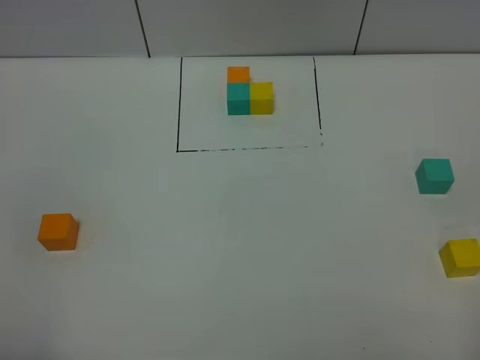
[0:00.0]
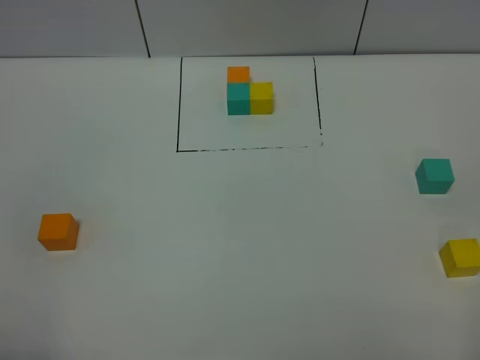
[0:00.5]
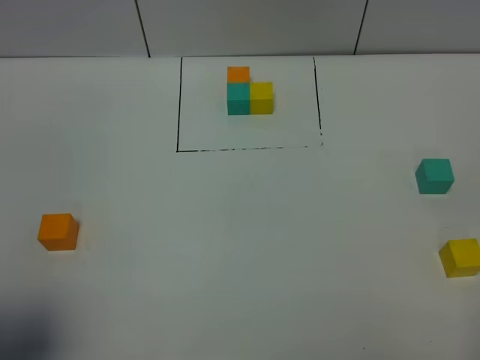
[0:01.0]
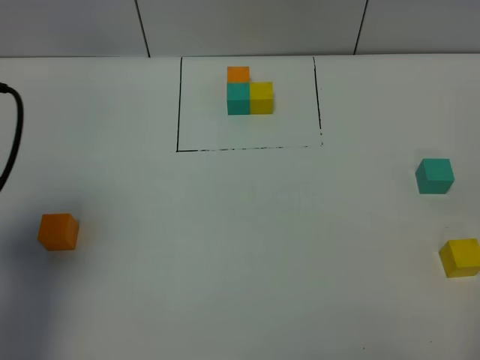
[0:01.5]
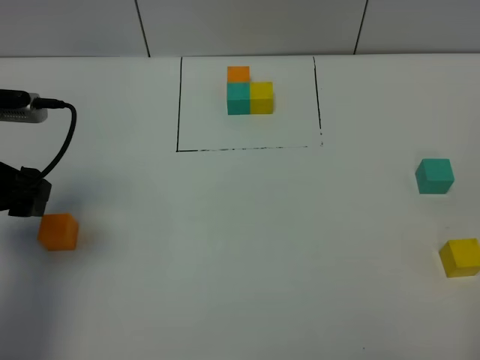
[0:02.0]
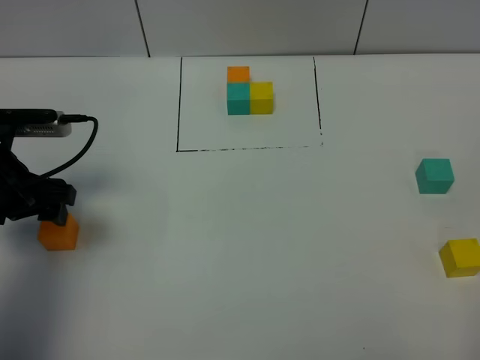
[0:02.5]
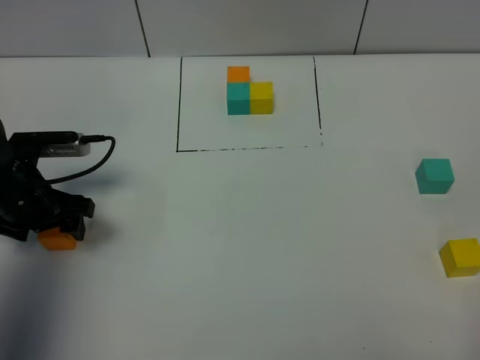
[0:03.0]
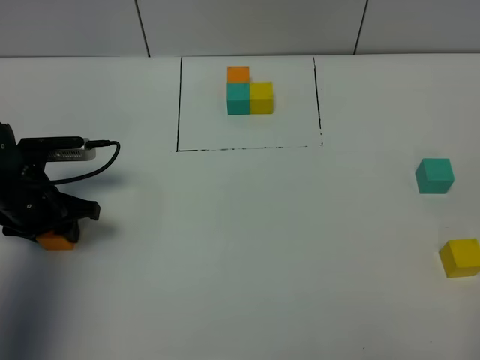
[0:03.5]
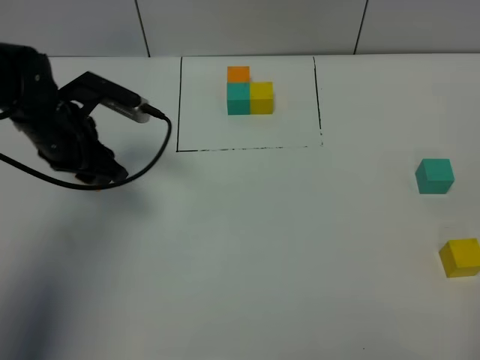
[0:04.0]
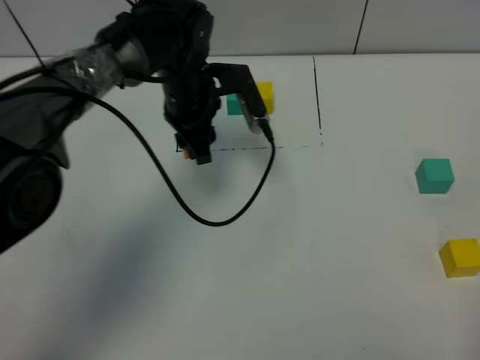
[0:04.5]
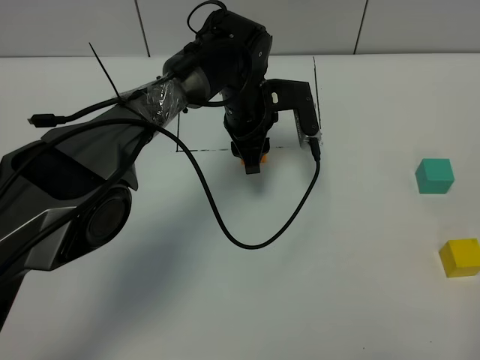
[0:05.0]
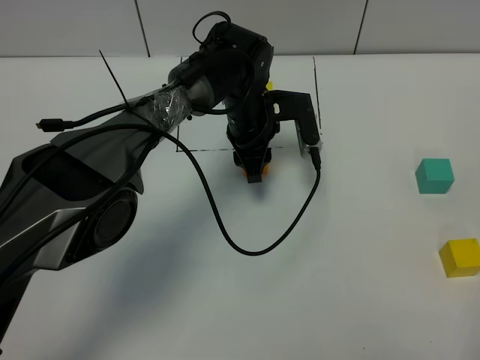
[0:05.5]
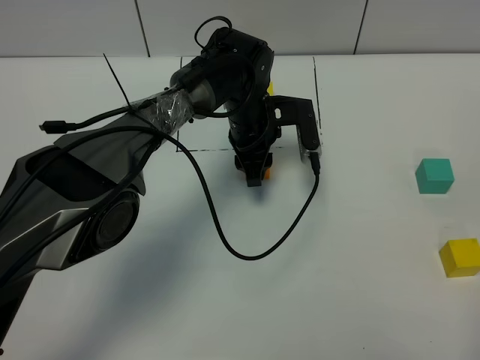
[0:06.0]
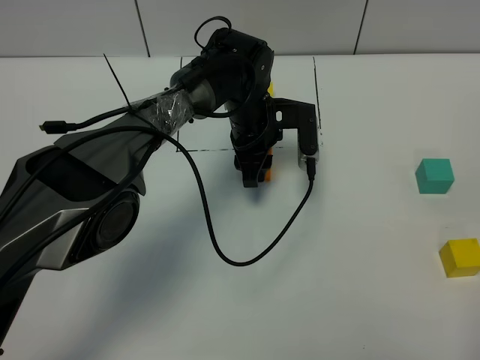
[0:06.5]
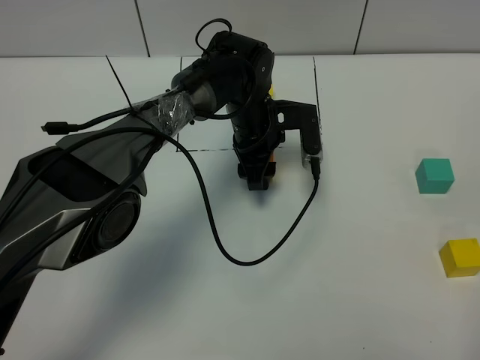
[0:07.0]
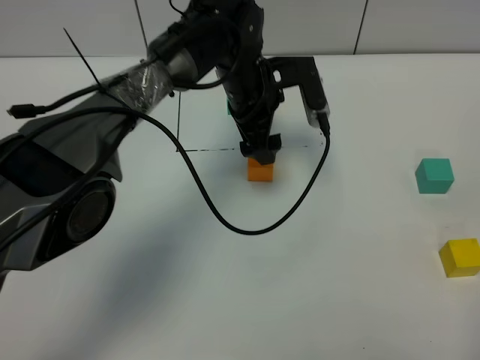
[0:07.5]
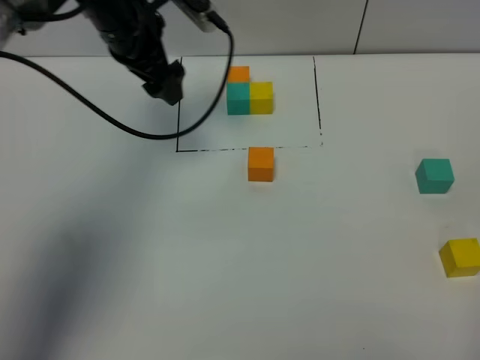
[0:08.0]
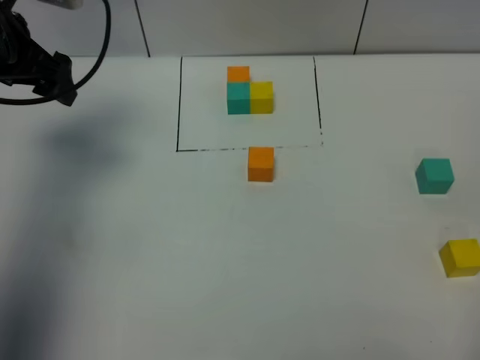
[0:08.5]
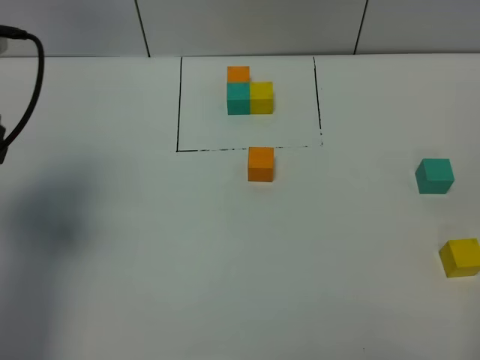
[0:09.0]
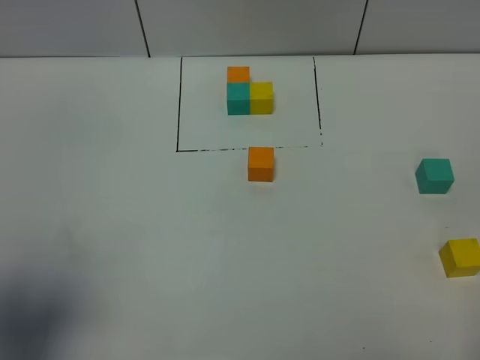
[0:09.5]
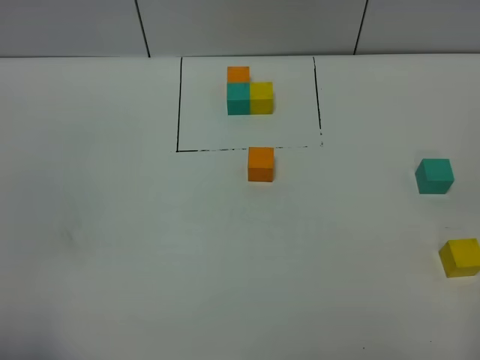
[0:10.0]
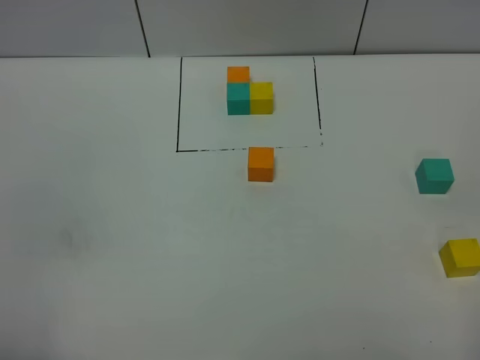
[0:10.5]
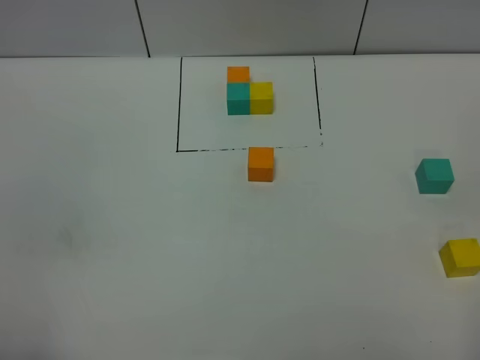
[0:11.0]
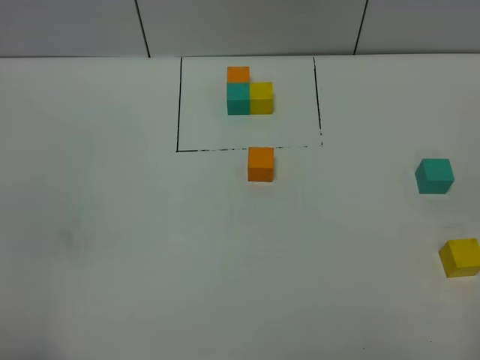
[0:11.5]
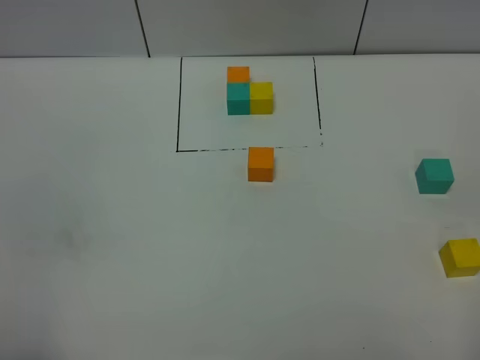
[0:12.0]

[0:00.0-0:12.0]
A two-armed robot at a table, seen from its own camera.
Task of the whole recording: According to the building block template in front, assemble the scattered blocks together.
Step, 0:00.0 to 0:07.0: Put the orange build block in the center of the table.
0:00.0 to 0:02.0: The left gripper moves forward, roughly 25 cm.
0:02.0 to 0:04.0: The left gripper shifts roughly 15 cm forward, to the right and downward, and closes its fingers.
0:04.0 to 0:06.0: The left gripper heads to the right, covering some 20 cm.
0:06.0 to 0:08.0: The left gripper heads to the left and upward, covering roughly 20 cm, and opens.
0:08.0 to 0:10.0: The left gripper shifts roughly 50 cm backward.

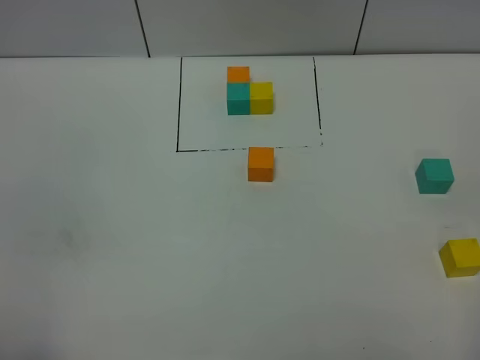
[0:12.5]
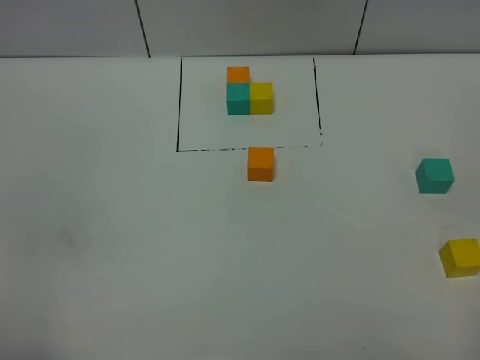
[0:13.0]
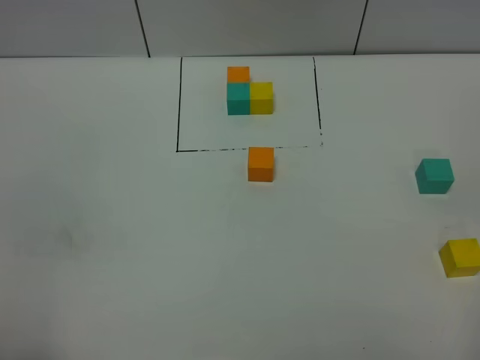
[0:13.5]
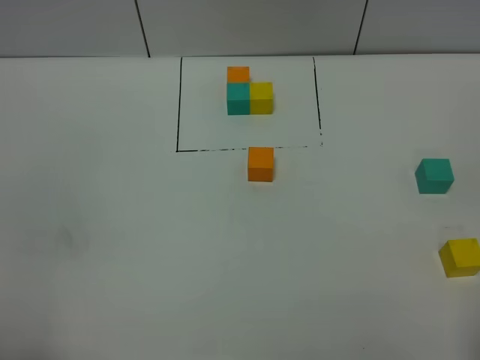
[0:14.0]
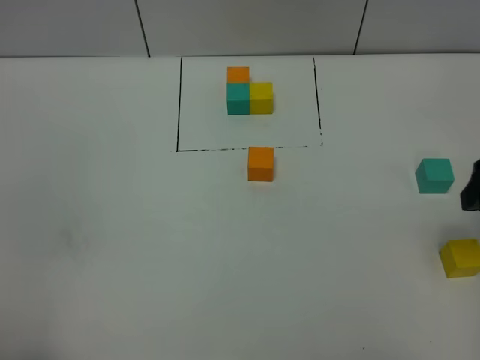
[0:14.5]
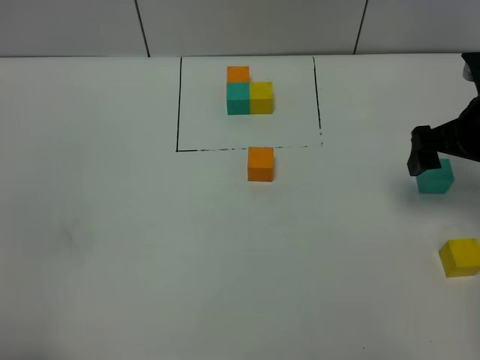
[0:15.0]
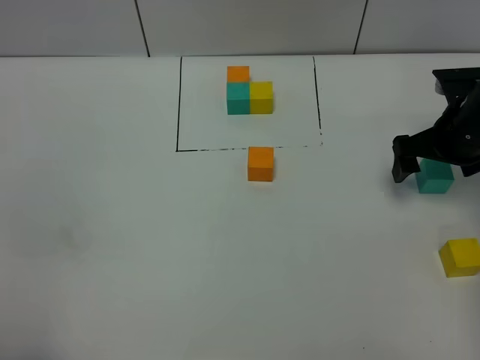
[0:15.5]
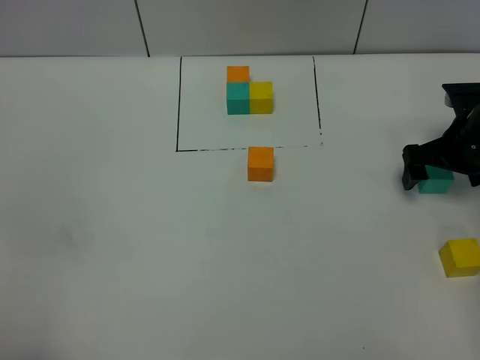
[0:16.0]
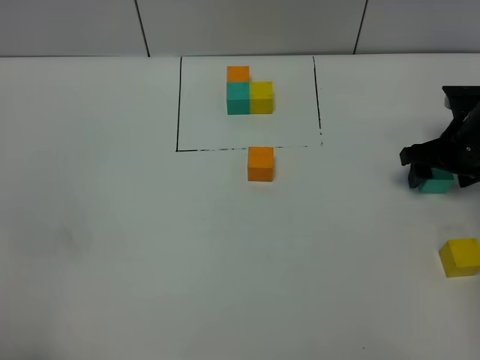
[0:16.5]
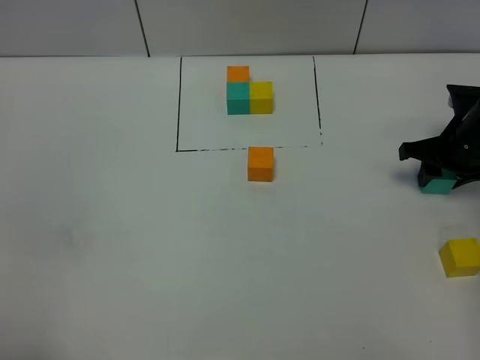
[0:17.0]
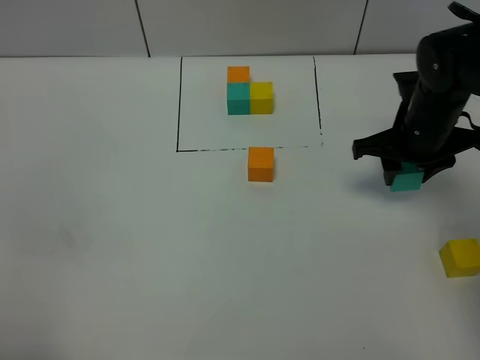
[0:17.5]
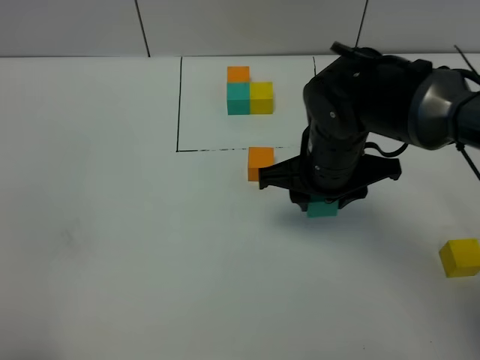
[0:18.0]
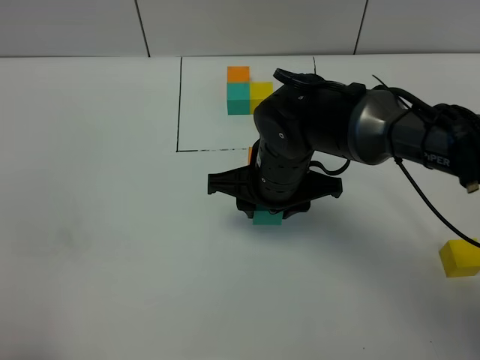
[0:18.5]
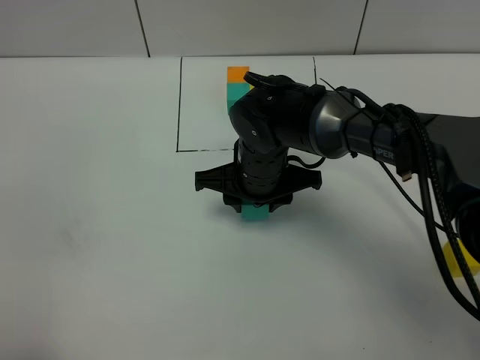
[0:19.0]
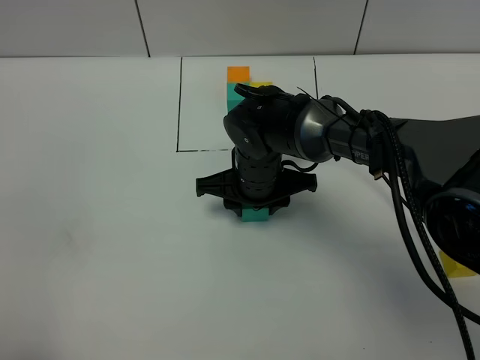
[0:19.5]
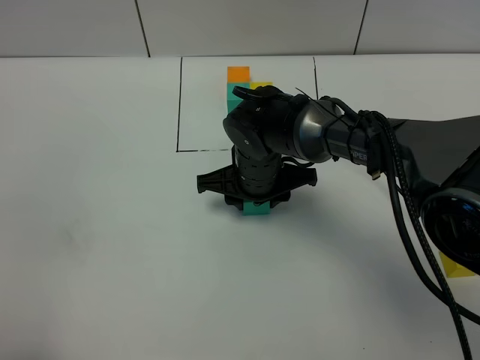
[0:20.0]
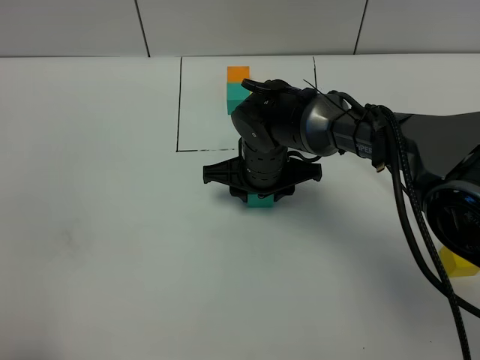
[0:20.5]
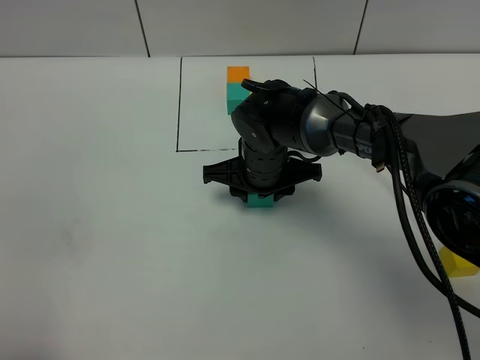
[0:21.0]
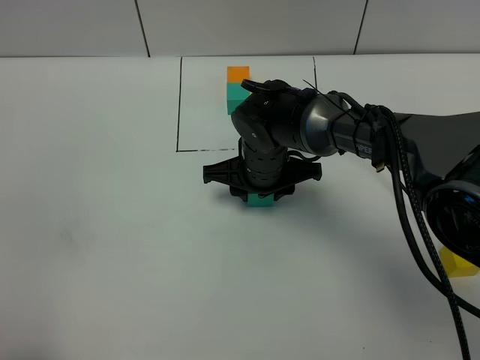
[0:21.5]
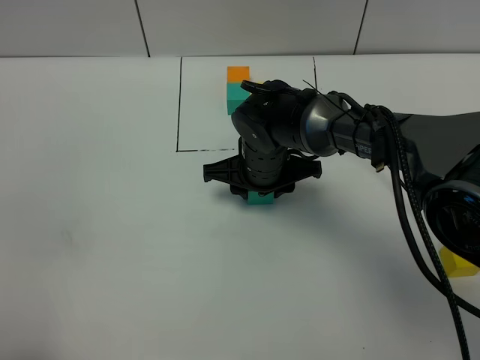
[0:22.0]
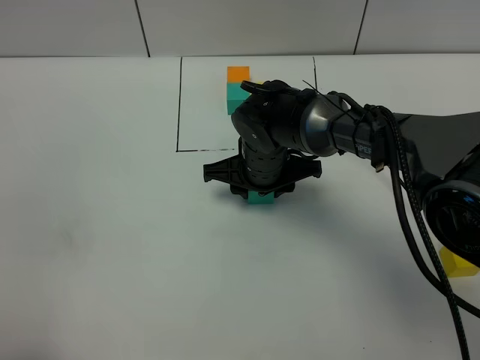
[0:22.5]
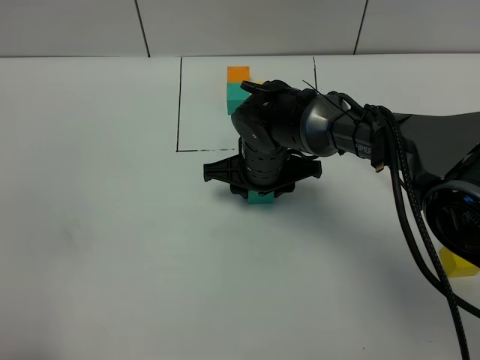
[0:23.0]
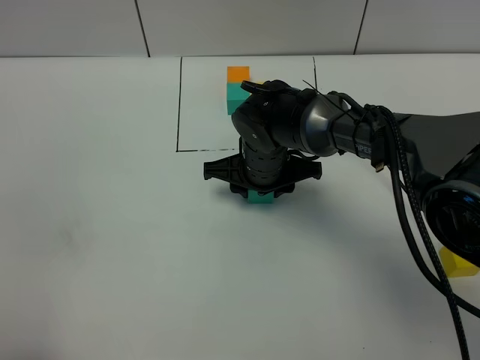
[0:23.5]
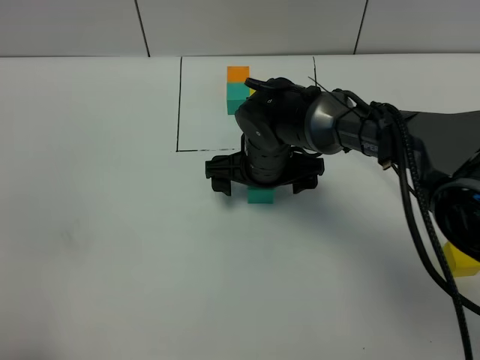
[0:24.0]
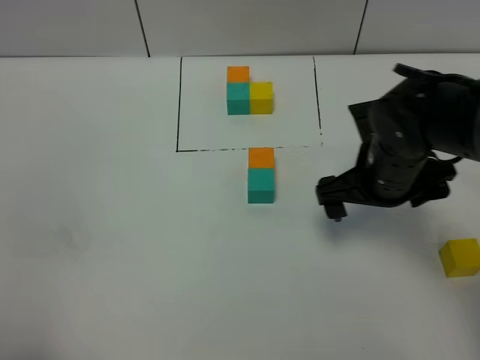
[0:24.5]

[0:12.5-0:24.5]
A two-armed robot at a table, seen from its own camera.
Task of the whole recording: According to the building block template in front, assemble the scattered blocks together.
Step, 0:12.5 to 0:23.0: Put the green build block on the behind of the orange build block.
0:12.5 to 0:14.5: The right gripper travels forward by roughly 20 cm.
0:14.5 to 0:16.5: The right gripper heads forward and downward, covering roughly 20 cm, and closes.
0:16.5 to 0:18.5: The right gripper heads to the left, covering approximately 25 cm, and closes up.
0:18.5 to 0:20.5: The right gripper moves downward and forward, roughly 10 cm.
0:20.5 to 0:22.5: Neither gripper changes place.
0:22.5 to 0:24.5: The right gripper shifts roughly 15 cm to the right, backward and upward, and opens up.

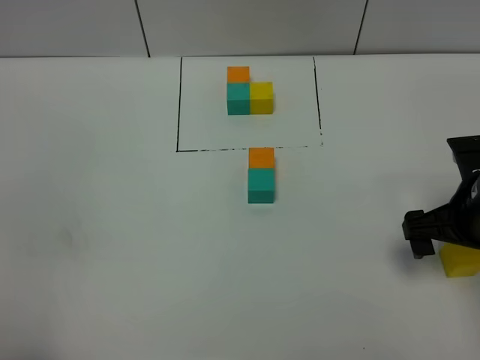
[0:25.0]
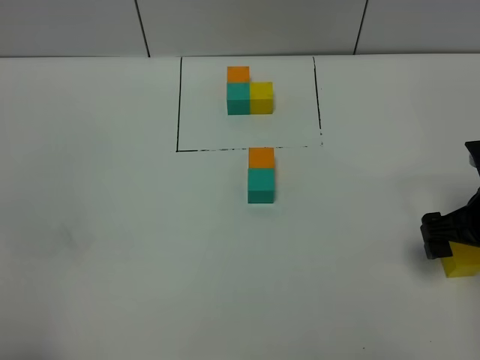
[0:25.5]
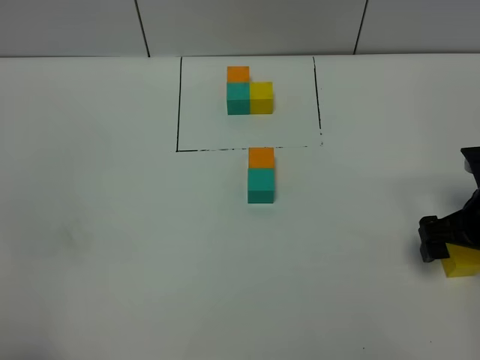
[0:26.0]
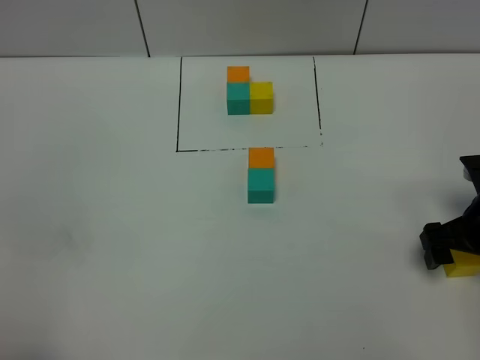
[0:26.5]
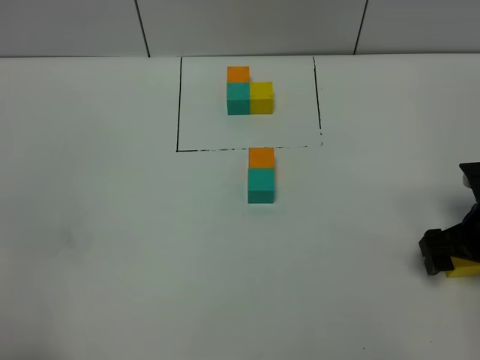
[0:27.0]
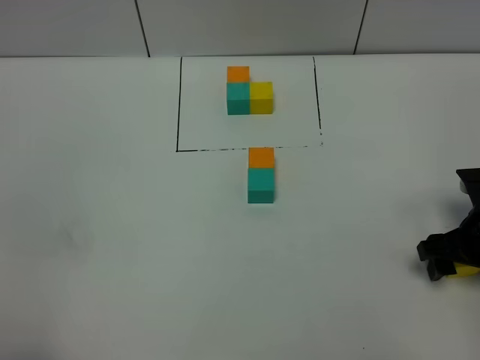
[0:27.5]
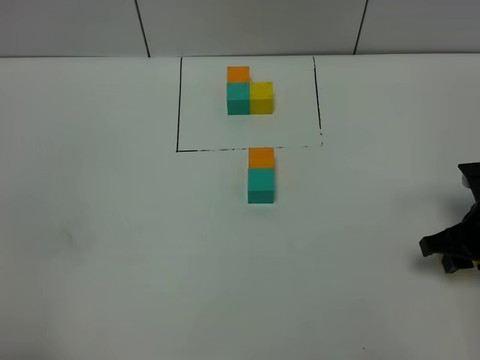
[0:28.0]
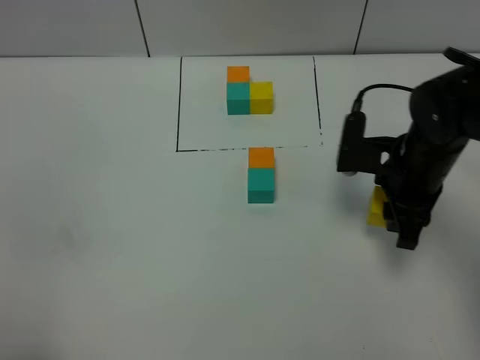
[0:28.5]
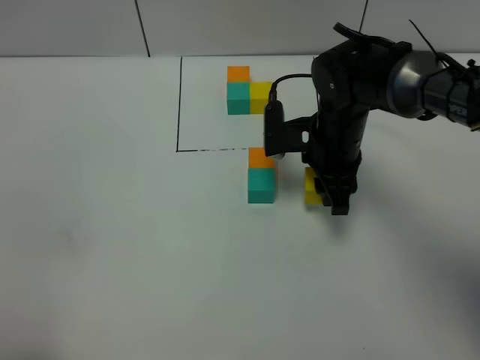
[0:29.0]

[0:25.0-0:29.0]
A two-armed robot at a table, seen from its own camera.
Task of the whole recording: According to the building block template in front, assemble the scattered blocks together.
0:25.0 to 0:27.0: The right gripper shifts by roughly 5 cm.
0:27.0 to 0:29.0: The right gripper heads to the left and forward, covering about 20 cm, and closes.
